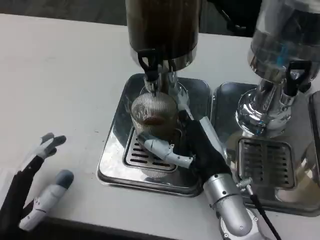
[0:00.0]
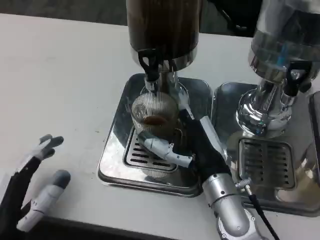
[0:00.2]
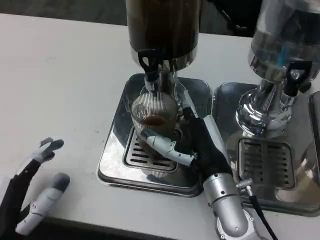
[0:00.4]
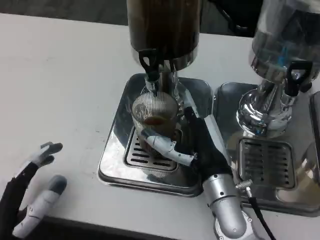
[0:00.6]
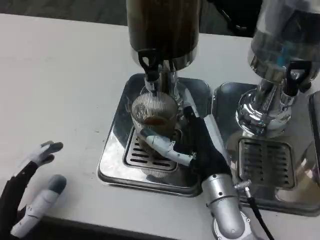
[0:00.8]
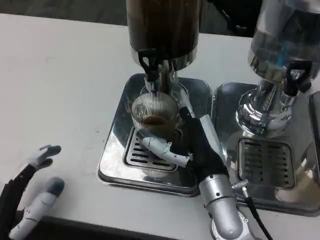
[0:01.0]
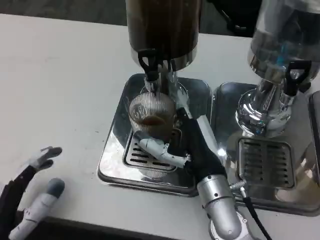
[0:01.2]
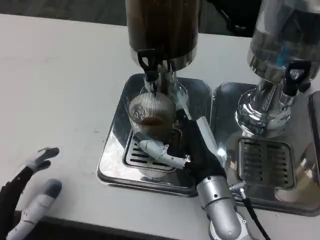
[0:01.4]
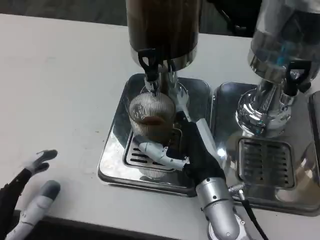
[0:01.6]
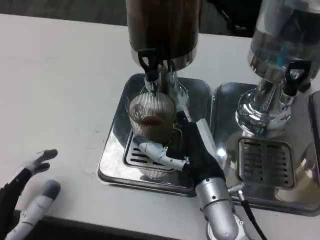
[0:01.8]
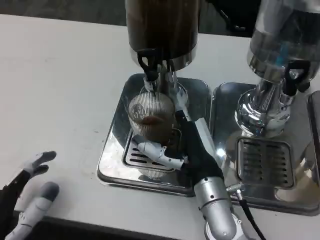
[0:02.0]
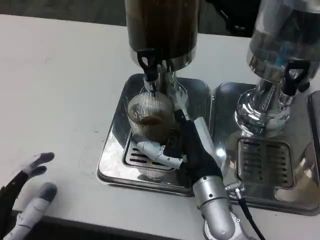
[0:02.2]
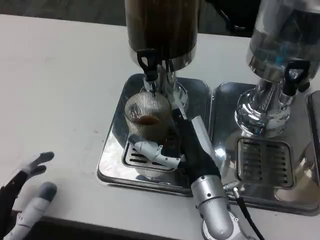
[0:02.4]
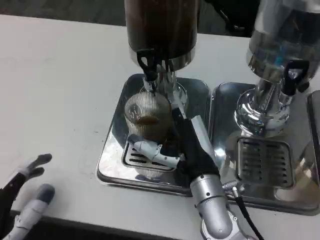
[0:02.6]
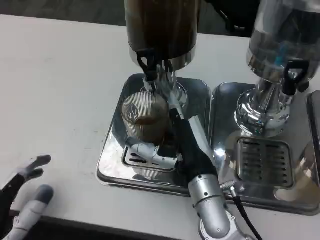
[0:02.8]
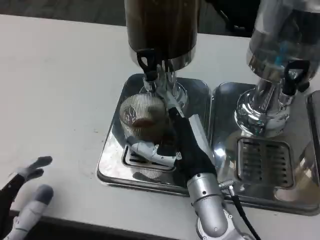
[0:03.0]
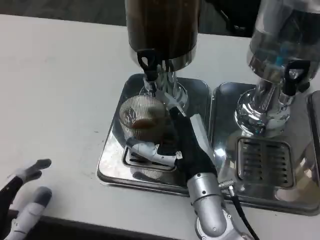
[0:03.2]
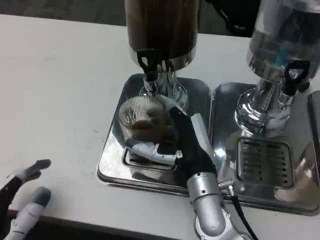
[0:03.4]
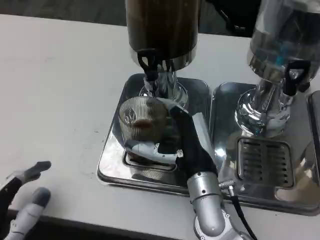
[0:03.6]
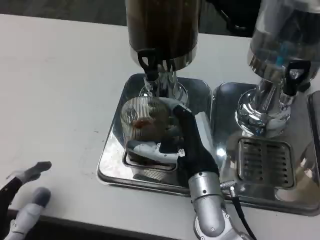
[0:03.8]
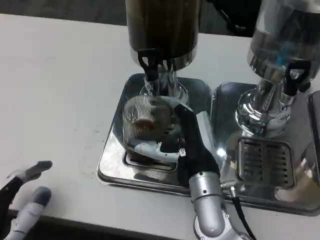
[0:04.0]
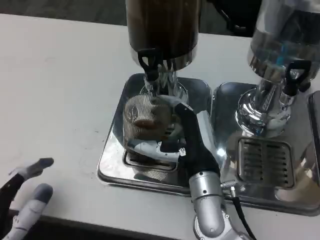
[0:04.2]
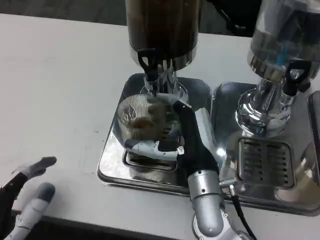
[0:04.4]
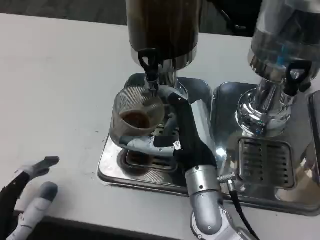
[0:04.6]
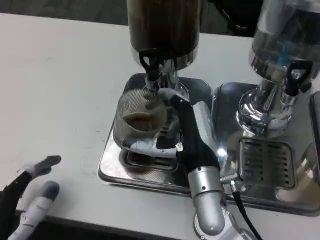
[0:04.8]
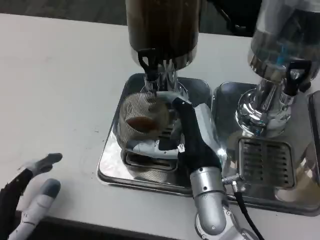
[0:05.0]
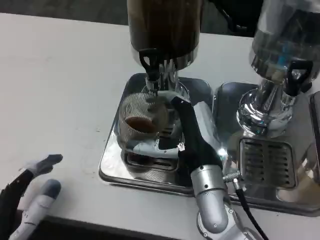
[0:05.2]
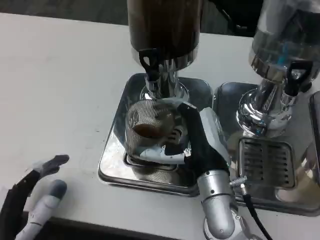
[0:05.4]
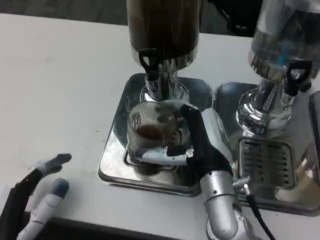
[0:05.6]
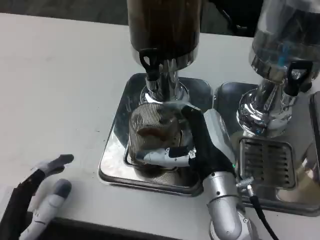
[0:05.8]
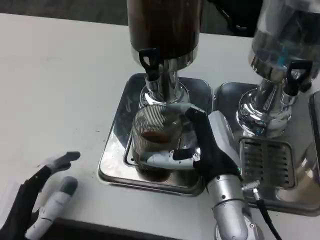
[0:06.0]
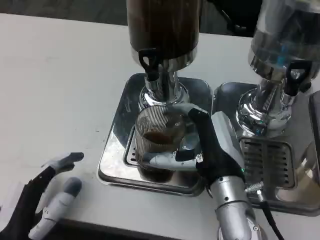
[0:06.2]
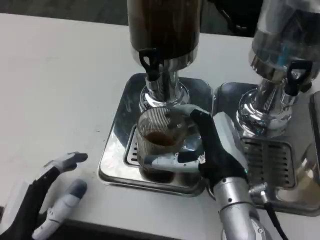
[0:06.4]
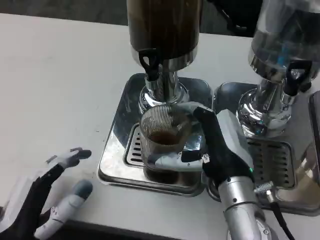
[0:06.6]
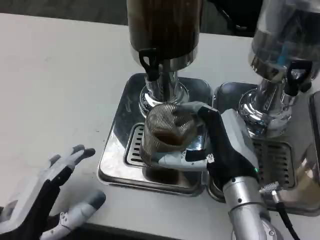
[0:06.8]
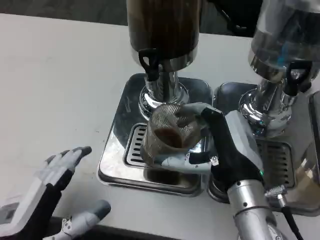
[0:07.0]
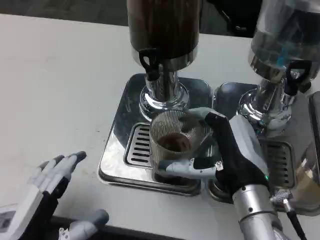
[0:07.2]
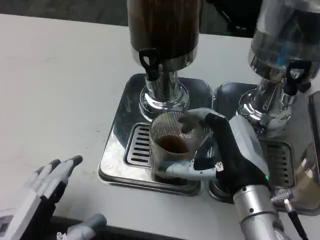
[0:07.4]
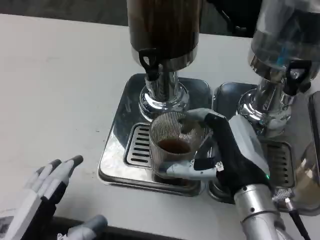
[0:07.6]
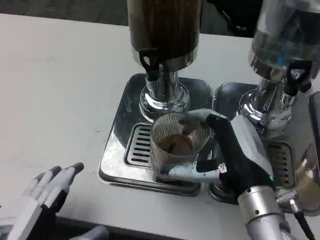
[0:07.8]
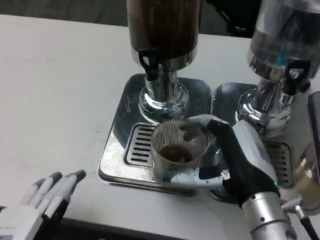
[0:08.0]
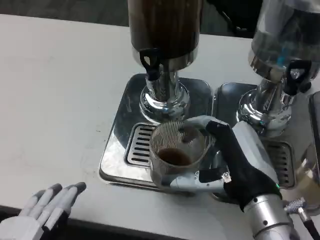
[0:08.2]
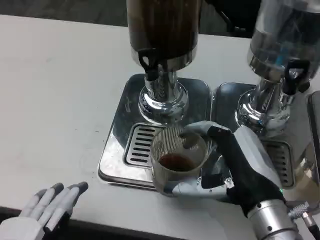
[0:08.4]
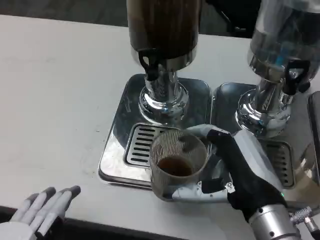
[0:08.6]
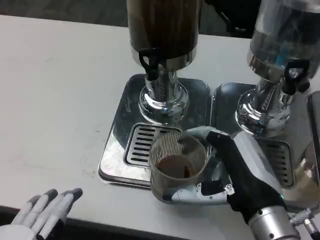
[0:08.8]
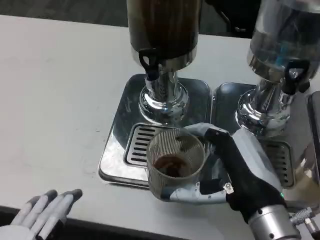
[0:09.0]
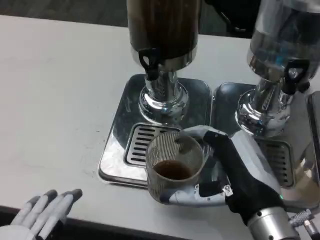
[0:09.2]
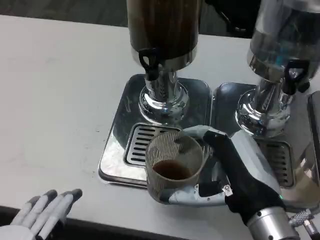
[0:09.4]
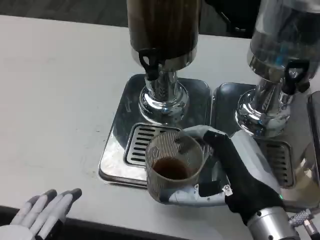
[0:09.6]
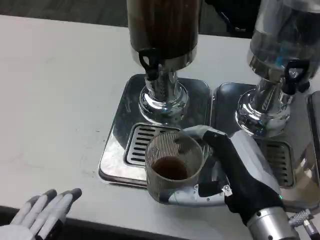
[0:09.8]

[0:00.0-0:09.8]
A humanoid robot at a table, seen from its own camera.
Task of the whole recording: Grasp the cup under the faucet to collect the drink, then remove the cup.
0:00.0 to 0:01.4: There are only small adjustments of the hands.
0:01.4 to 0:02.8: Both hands stay put.
0:02.8 to 0:05.6: The hands move only a little.
0:05.6 to 0:07.0: The right hand shifts by about 5 cm.
0:07.0 to 0:08.4: The left hand moves backward, roughly 5 cm.
0:08.4 to 0:09.8: Neither hand changes place.

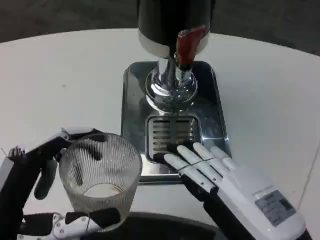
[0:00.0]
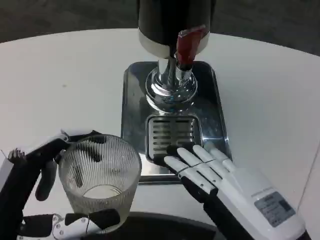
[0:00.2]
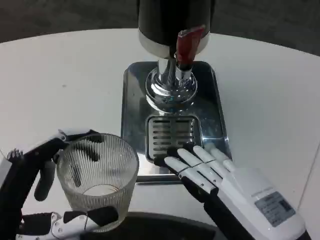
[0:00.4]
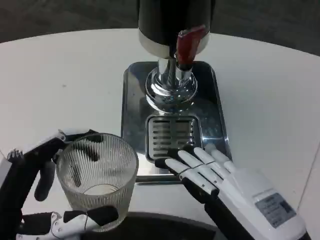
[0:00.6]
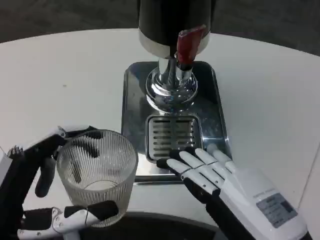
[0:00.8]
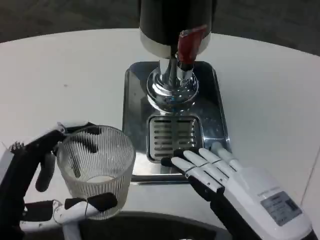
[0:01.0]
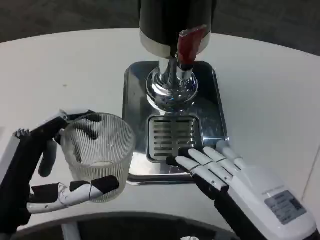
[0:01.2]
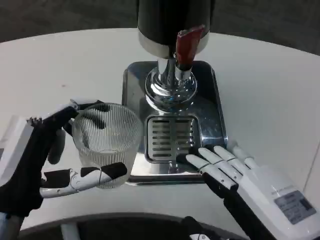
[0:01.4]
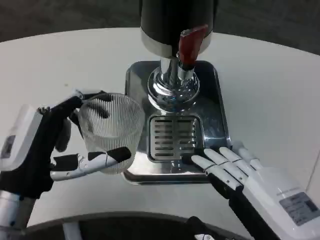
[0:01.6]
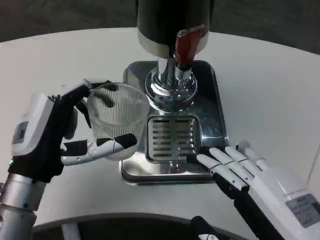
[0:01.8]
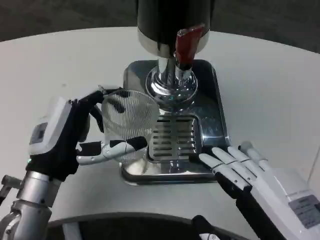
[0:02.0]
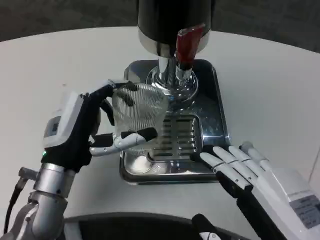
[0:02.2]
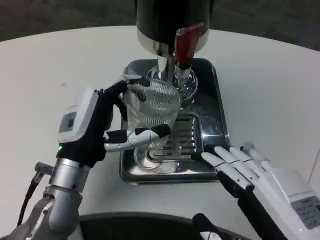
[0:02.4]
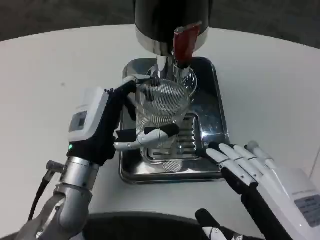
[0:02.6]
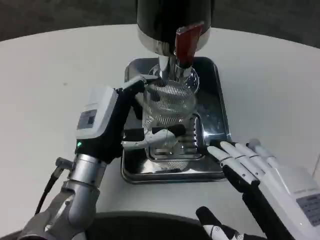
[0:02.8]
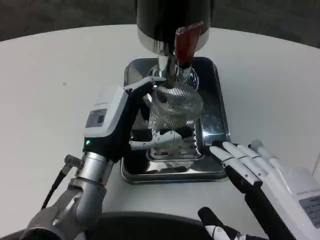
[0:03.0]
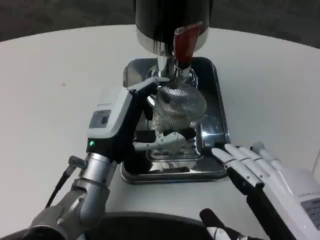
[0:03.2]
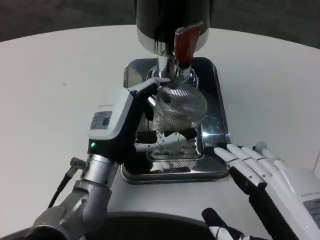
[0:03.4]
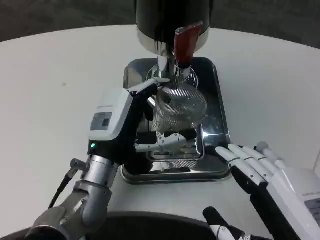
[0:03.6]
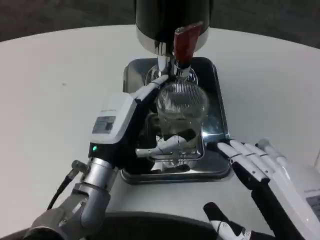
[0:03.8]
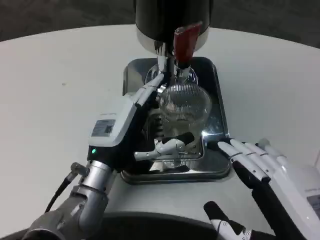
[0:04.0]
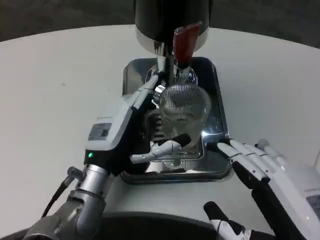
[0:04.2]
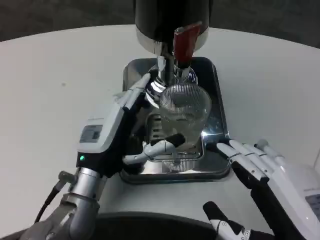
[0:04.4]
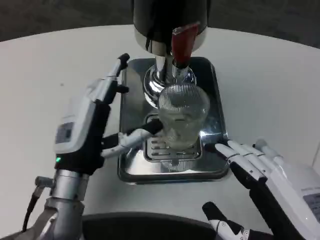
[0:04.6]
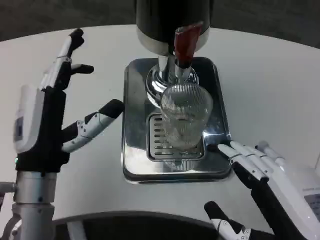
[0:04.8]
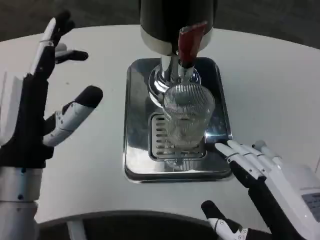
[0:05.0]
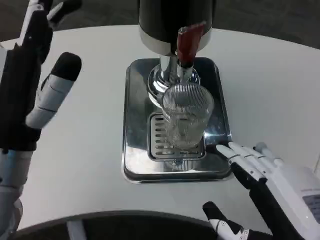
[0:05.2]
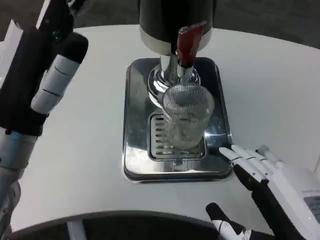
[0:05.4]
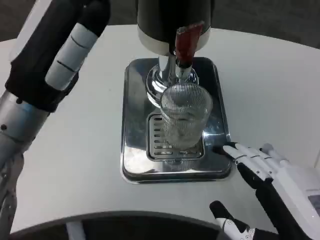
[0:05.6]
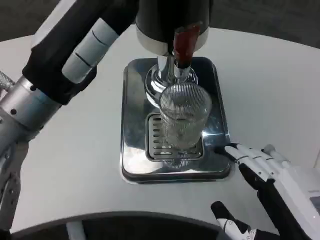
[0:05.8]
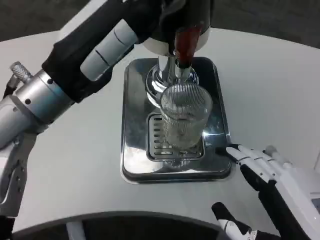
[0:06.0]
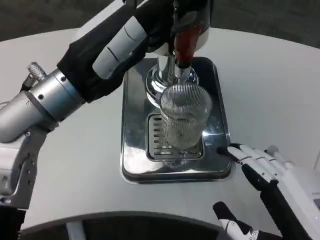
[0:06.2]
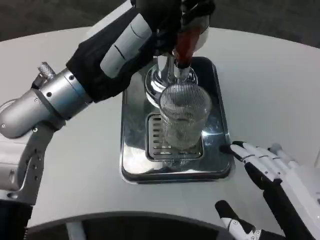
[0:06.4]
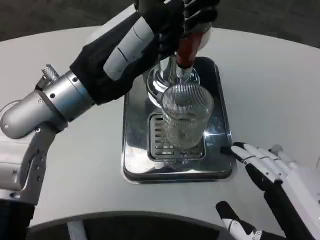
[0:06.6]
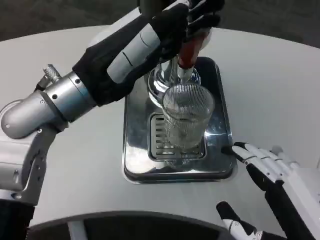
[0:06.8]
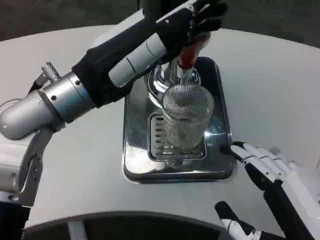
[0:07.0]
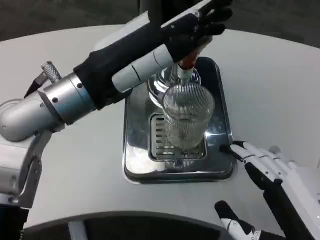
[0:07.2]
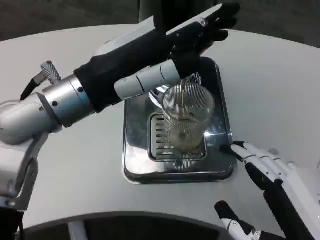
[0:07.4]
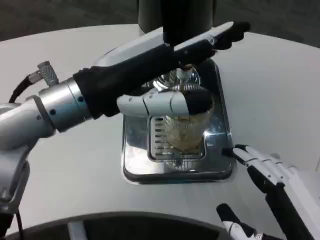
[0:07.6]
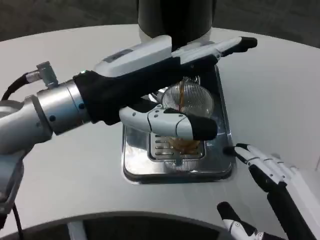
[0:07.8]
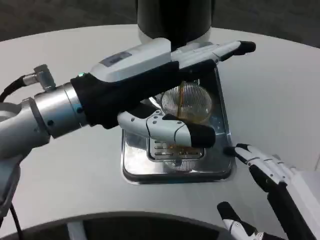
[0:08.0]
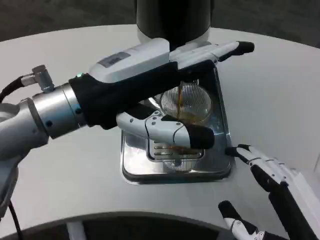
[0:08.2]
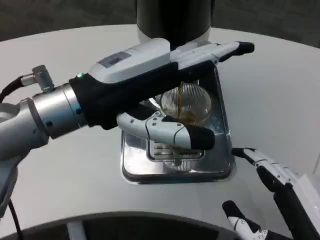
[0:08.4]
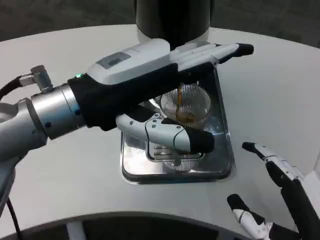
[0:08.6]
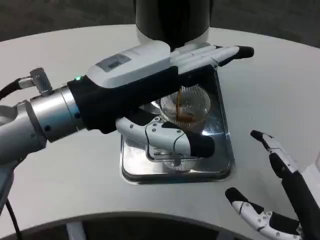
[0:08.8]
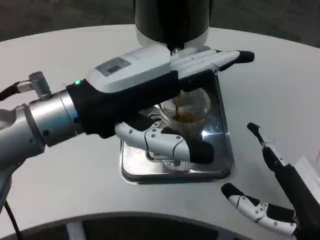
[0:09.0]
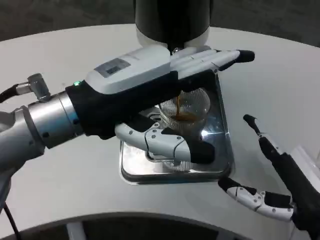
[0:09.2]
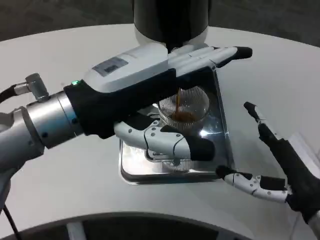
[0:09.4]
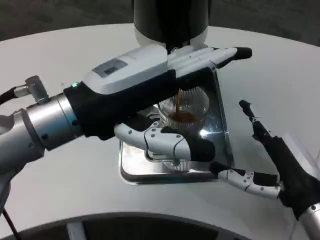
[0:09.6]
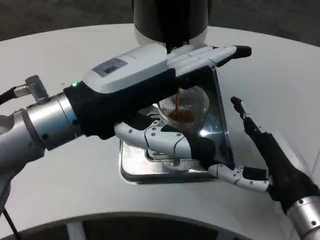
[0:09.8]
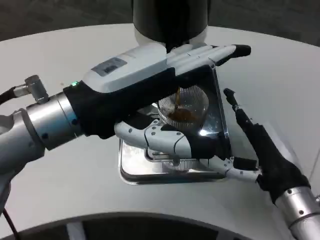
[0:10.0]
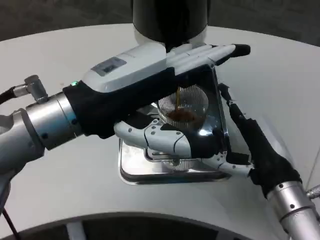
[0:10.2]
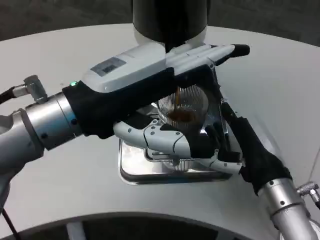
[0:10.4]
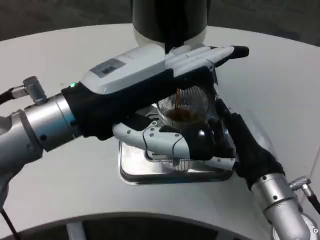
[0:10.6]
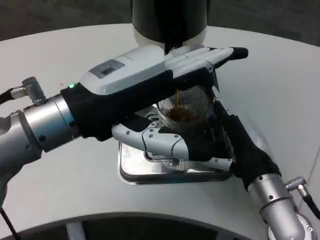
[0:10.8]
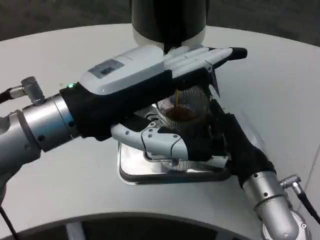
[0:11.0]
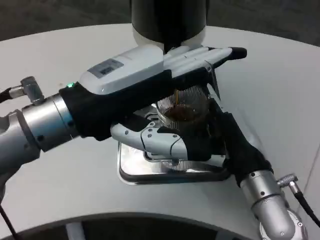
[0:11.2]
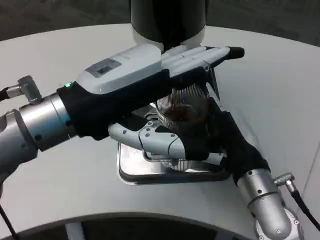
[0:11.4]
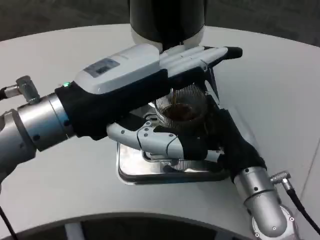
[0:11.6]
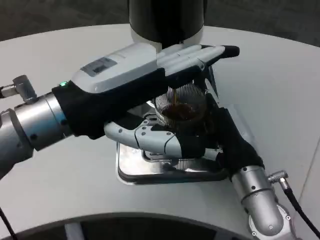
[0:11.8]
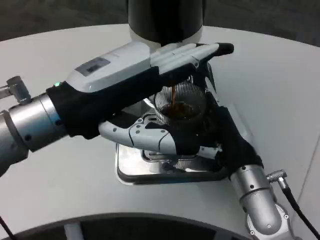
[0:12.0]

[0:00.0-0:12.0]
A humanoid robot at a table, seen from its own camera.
Task of the whole recording: Grasp the cup under the faucet to collect the drink, then remove the cup.
0:00.0 to 0:01.6: The left hand heads forward, covering approximately 10 cm.
0:01.6 to 0:03.0: The left hand shifts approximately 10 cm forward and to the right.
0:03.0 to 0:04.4: There are only small adjustments of the hands.
0:04.4 to 0:06.0: The left hand heads upward, covering roughly 20 cm.
0:07.6 to 0:09.0: The right hand shifts approximately 5 cm forward.
0:09.0 to 0:10.4: The right hand travels forward by roughly 10 cm.
